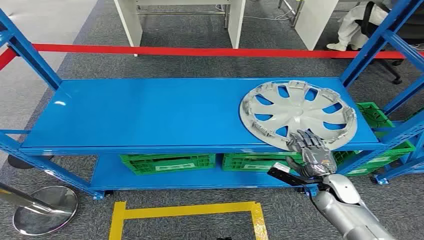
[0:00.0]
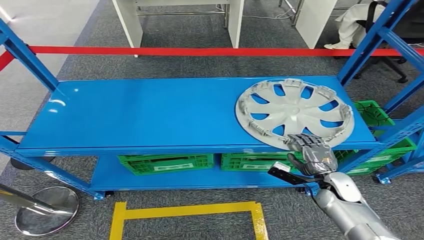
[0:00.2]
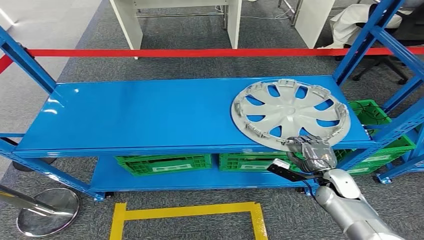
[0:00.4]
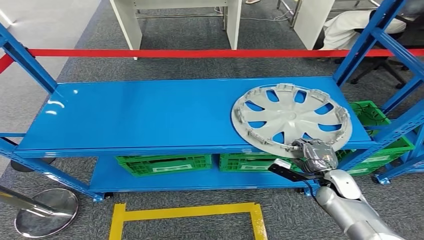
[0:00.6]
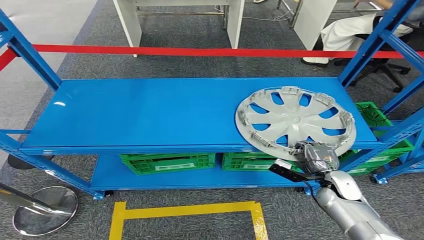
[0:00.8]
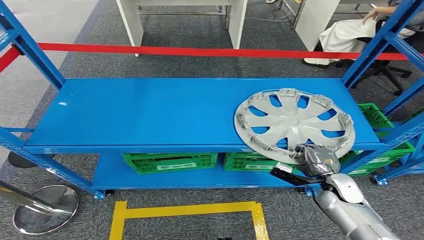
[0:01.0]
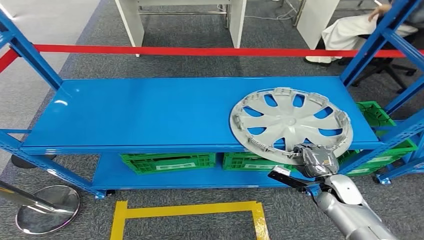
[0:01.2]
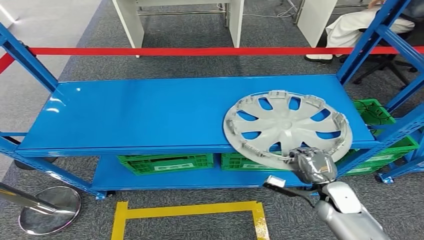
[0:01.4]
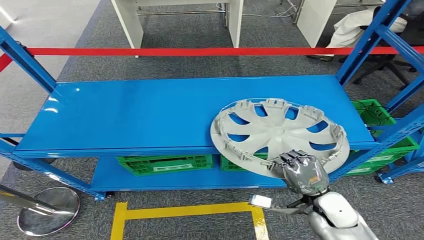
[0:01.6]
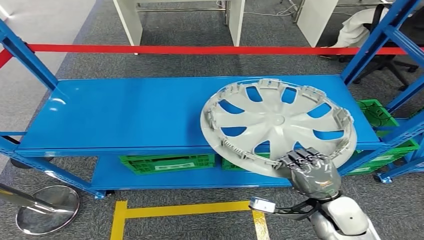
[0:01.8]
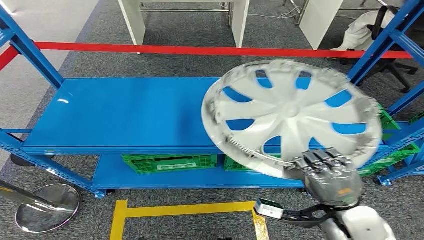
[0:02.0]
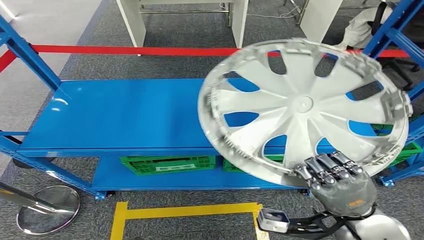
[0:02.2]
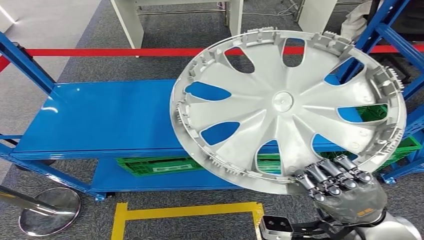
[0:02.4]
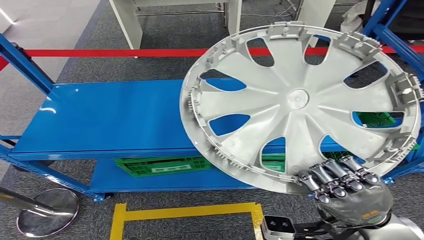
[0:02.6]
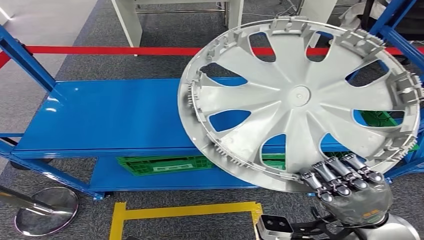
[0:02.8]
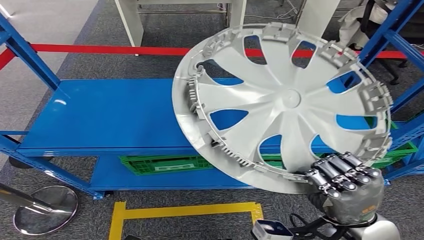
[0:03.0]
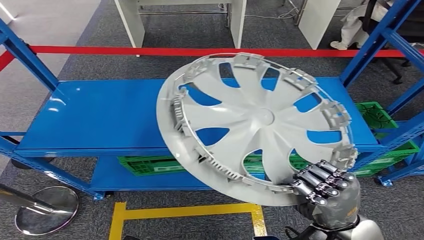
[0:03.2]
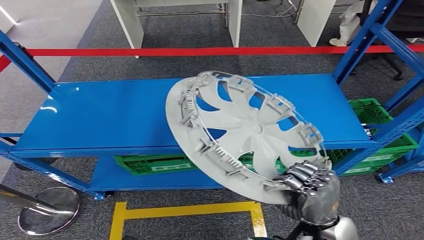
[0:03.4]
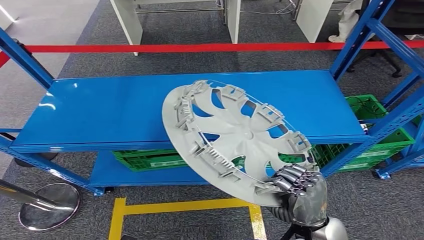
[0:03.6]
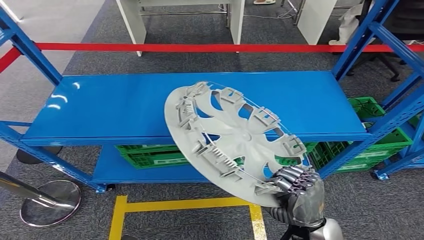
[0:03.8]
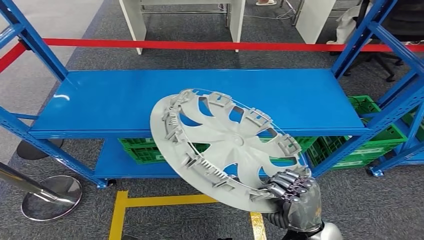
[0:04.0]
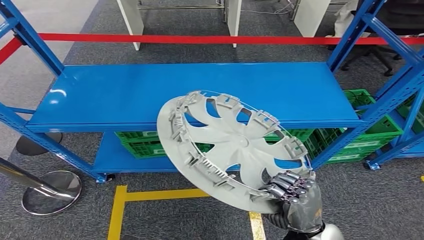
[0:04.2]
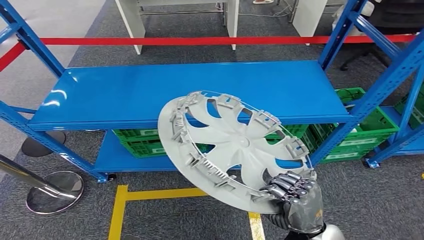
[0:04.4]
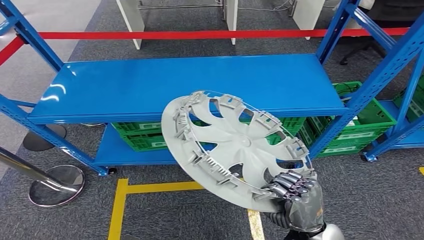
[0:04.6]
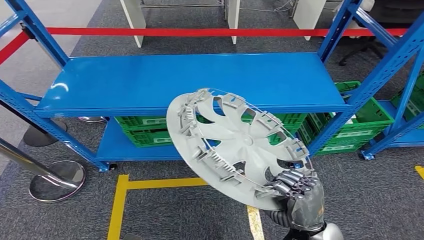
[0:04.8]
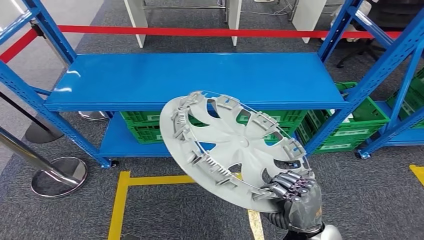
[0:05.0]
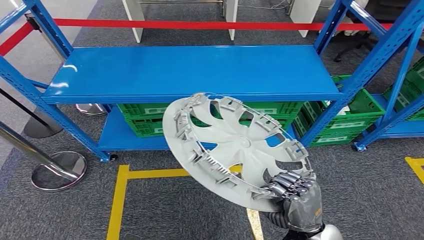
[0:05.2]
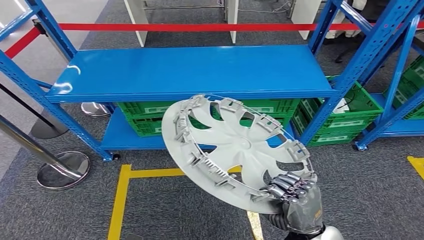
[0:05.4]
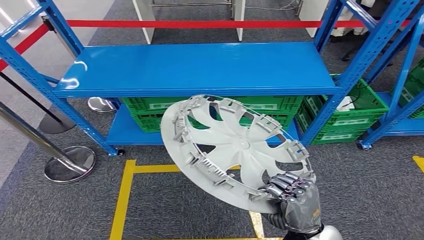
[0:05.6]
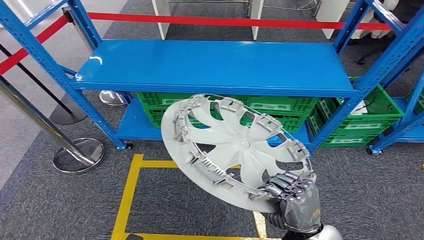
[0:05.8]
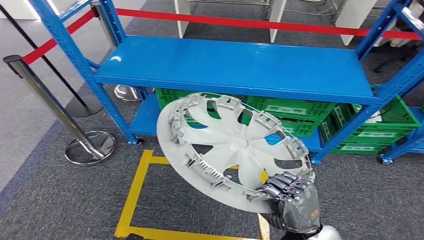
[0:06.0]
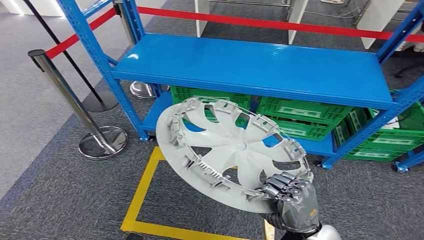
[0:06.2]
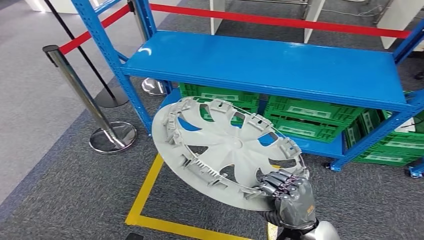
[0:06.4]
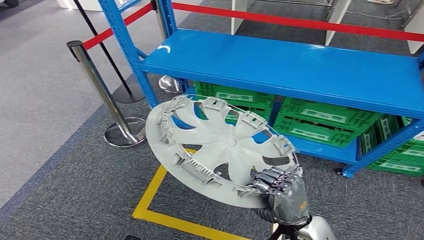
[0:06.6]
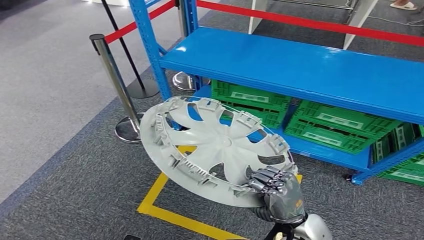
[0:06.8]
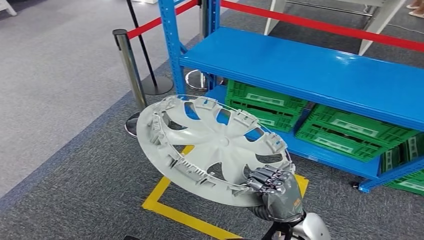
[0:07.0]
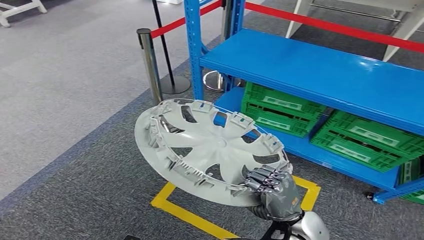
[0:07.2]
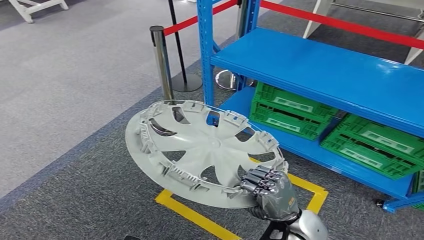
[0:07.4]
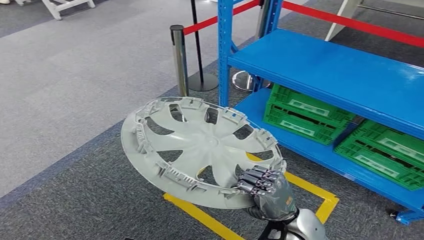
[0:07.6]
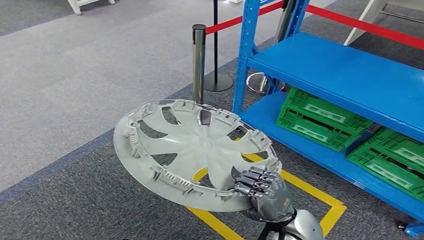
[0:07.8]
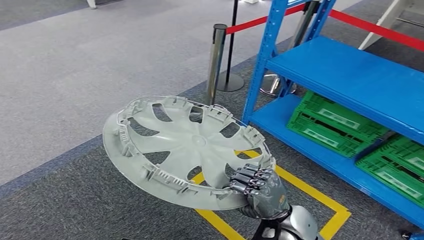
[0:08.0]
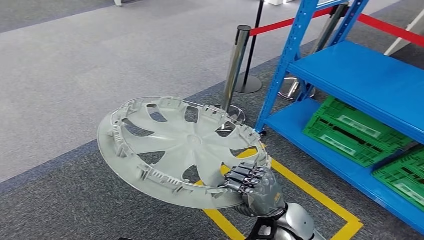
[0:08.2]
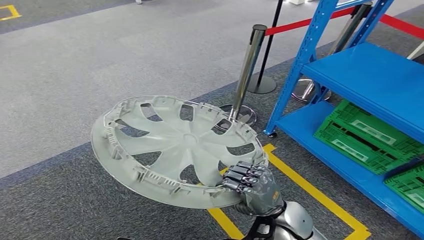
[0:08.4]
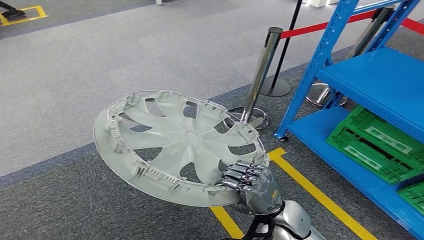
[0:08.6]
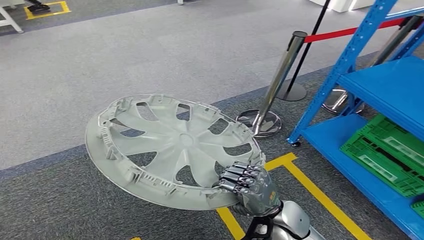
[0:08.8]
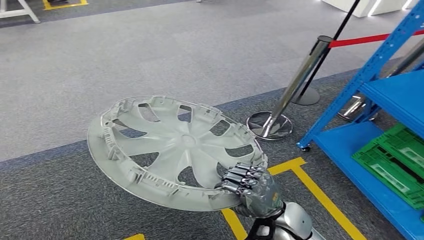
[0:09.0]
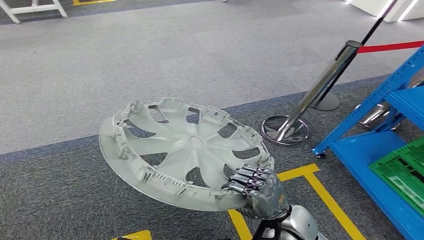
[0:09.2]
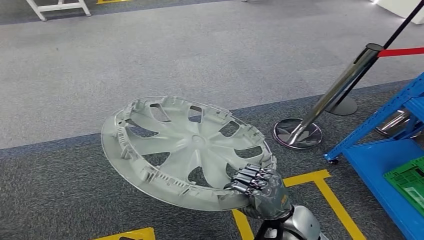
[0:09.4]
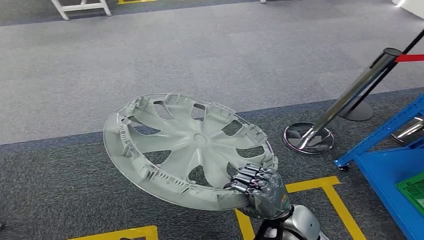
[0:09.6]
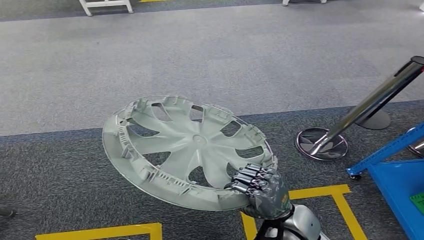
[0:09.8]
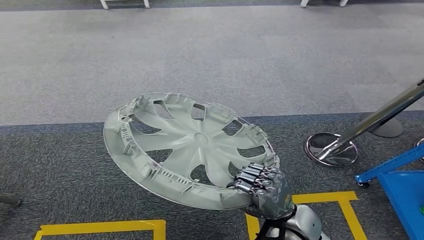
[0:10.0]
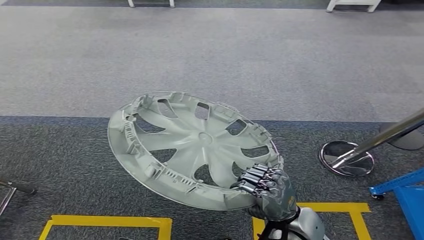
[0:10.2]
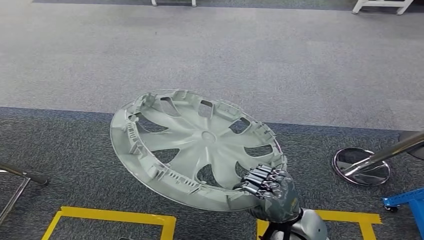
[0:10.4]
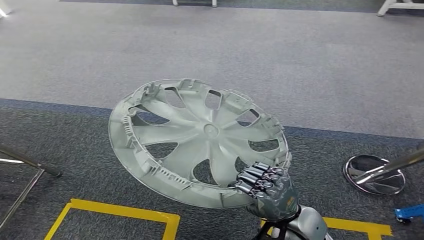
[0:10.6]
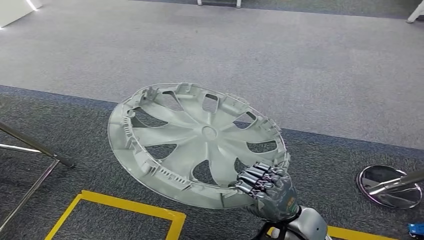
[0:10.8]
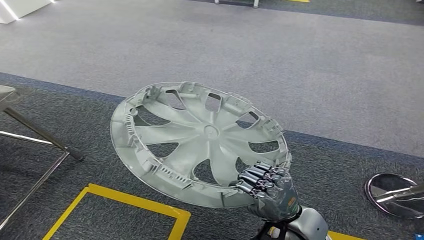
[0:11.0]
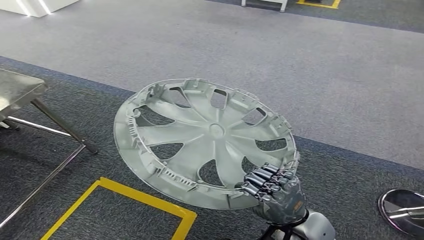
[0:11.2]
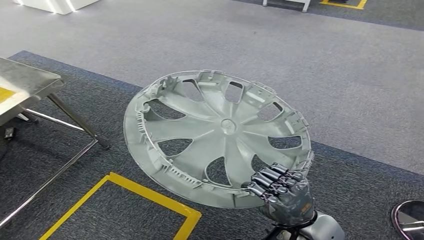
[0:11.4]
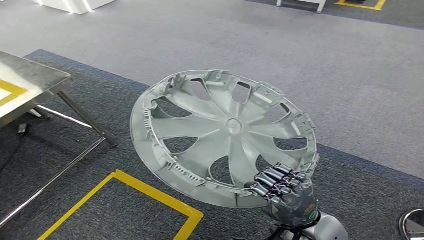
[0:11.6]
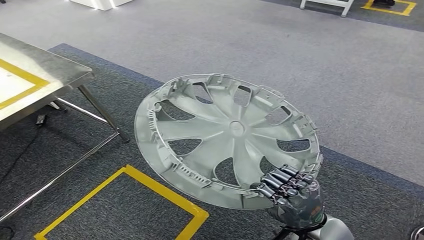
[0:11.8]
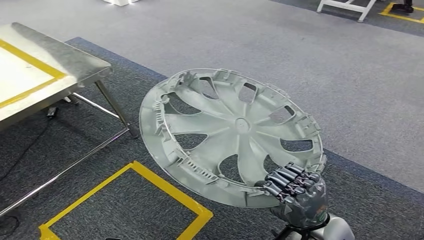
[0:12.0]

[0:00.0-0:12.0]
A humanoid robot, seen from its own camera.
Step, 0:00.0 to 0:03.6: Pick up the small component from the shelf.

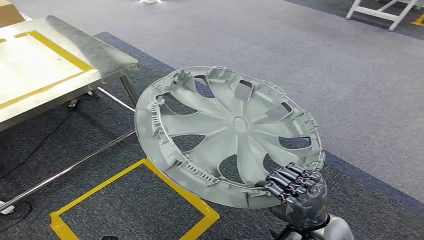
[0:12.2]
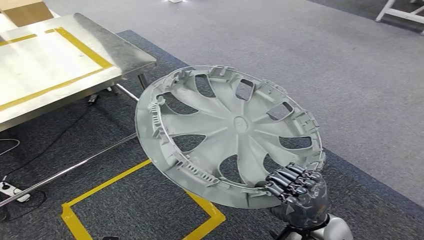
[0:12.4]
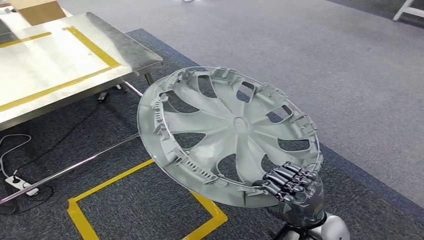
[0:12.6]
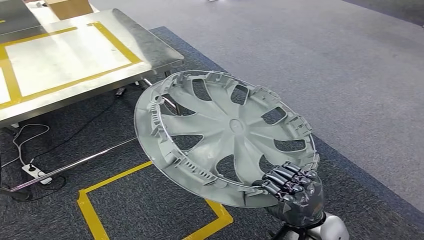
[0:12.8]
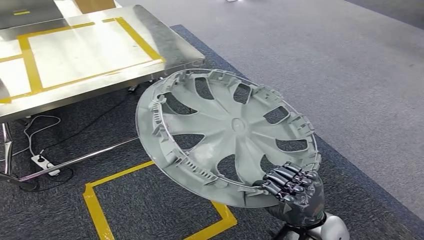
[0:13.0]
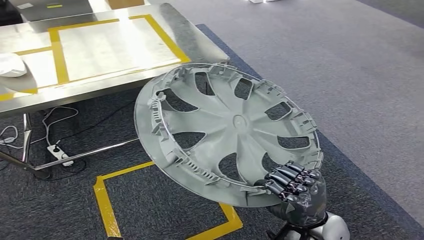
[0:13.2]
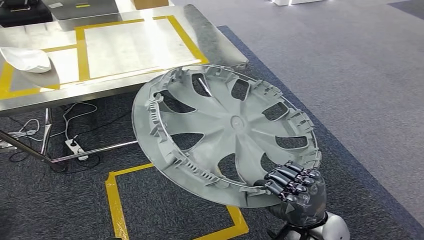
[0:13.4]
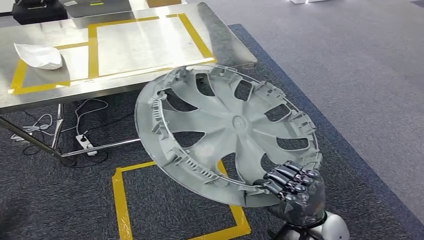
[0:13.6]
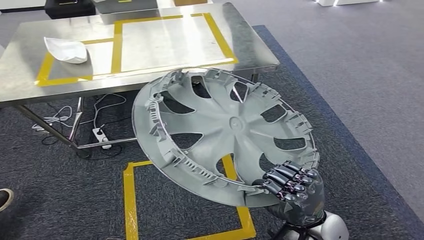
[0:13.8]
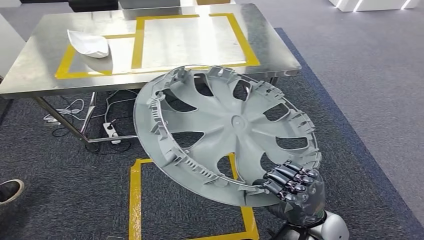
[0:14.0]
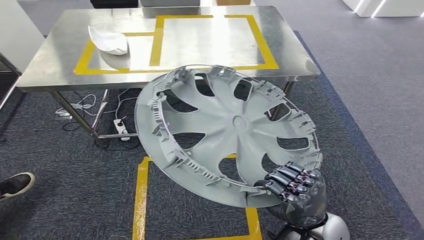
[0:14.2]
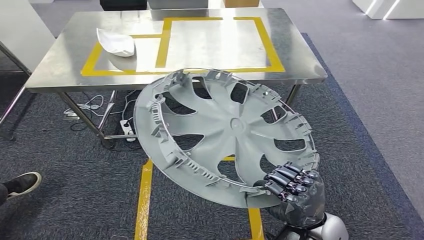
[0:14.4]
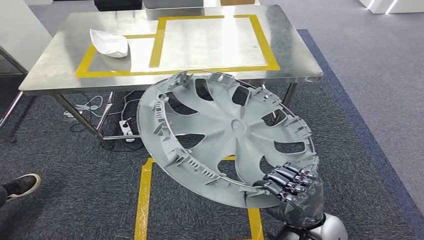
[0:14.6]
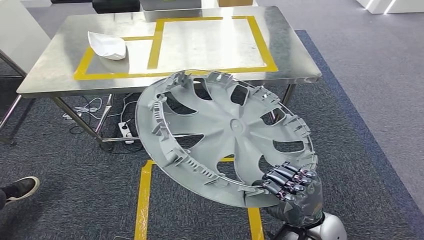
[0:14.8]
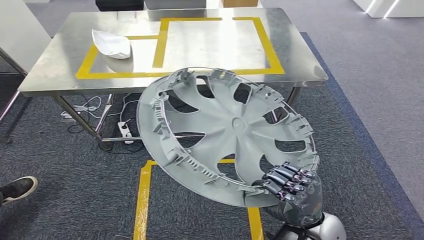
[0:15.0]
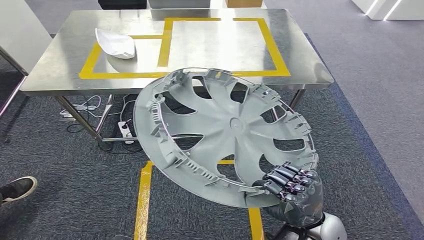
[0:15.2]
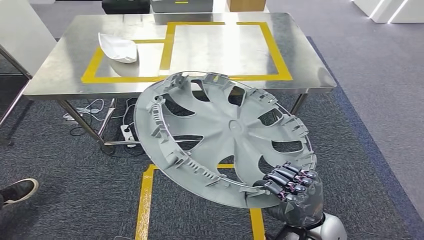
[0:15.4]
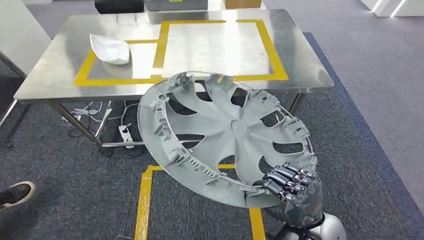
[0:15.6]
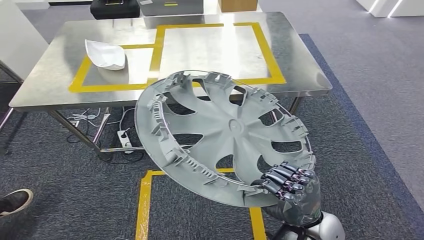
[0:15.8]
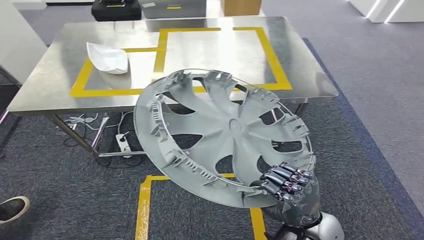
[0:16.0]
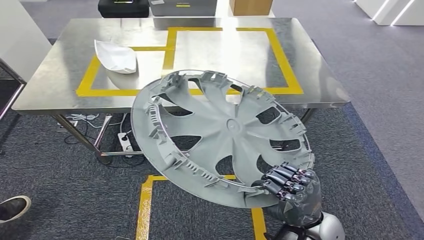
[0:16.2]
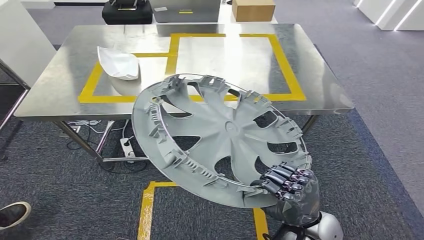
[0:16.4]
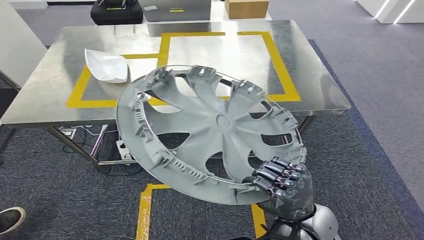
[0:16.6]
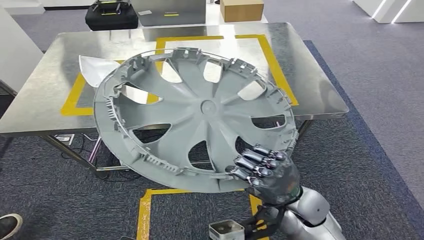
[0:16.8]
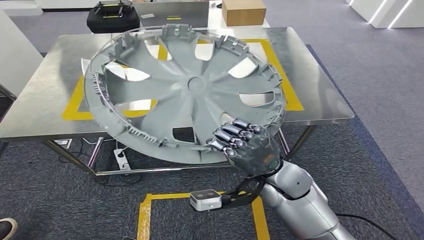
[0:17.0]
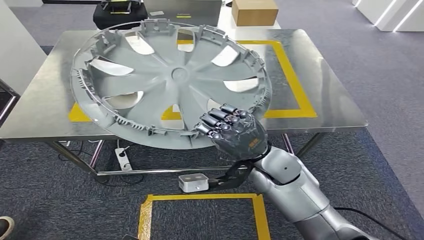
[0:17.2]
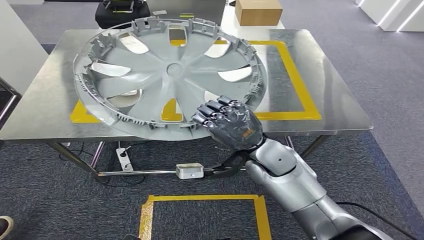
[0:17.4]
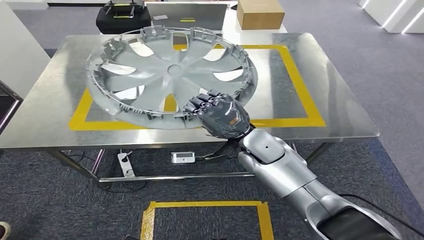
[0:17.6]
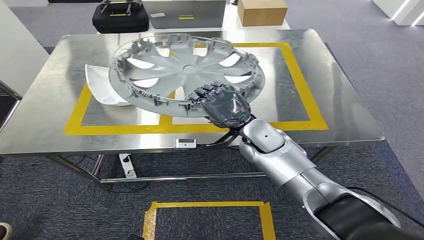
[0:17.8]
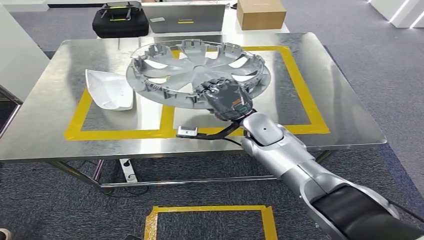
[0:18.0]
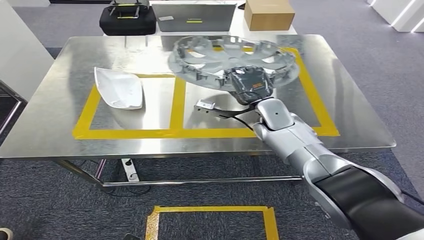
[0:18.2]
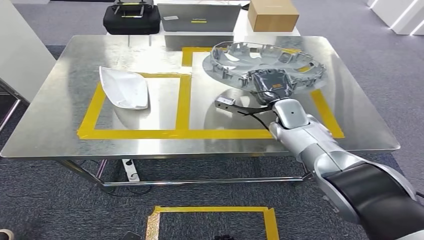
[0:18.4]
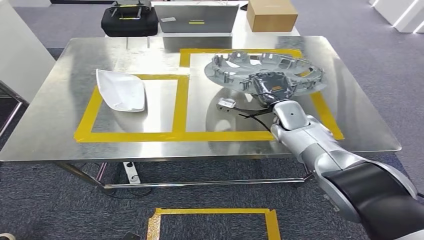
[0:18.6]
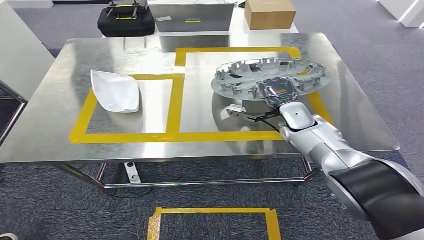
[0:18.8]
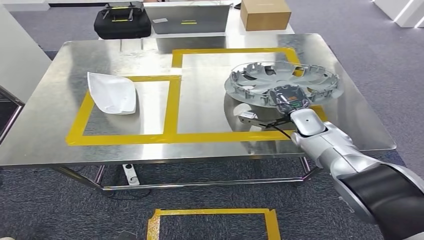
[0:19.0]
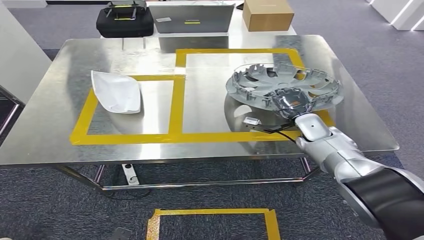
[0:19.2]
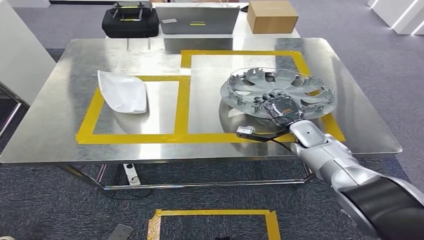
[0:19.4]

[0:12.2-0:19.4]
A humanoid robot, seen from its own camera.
Step, 0:12.2 to 0:14.2: Move the small component to the workbench.
